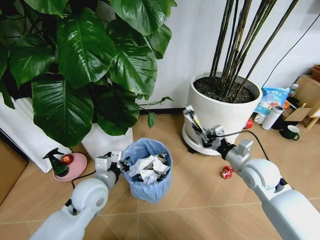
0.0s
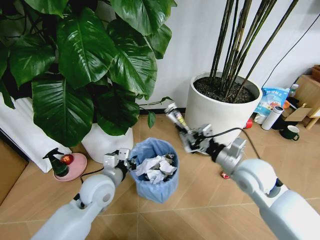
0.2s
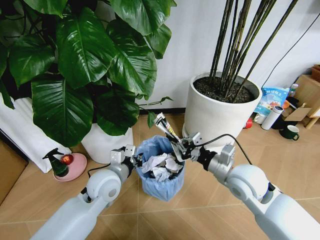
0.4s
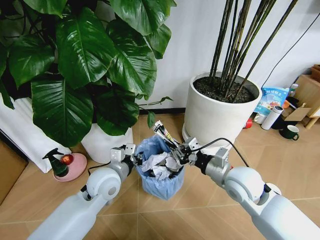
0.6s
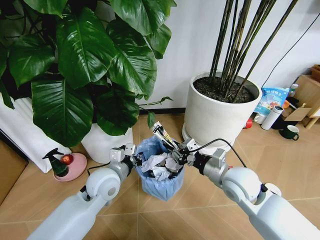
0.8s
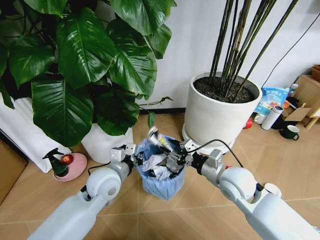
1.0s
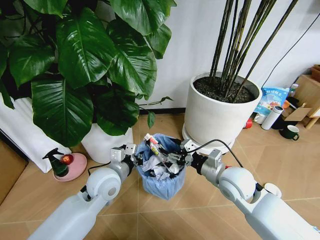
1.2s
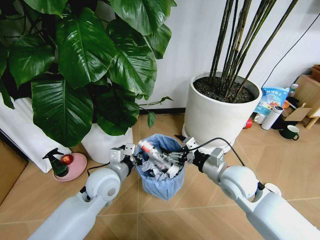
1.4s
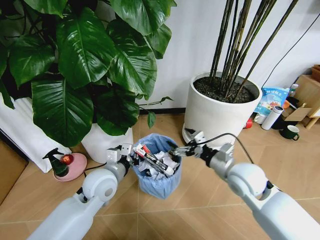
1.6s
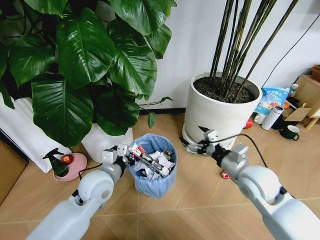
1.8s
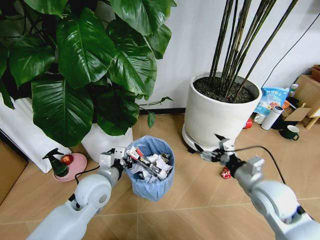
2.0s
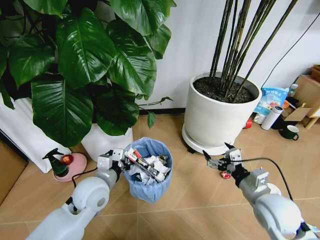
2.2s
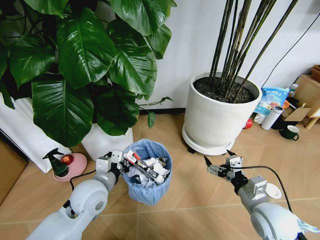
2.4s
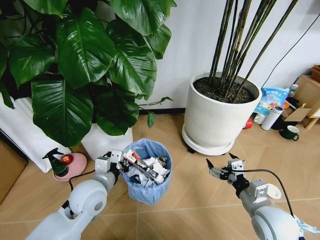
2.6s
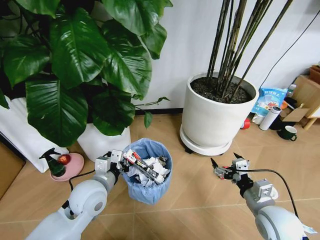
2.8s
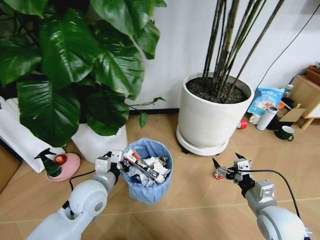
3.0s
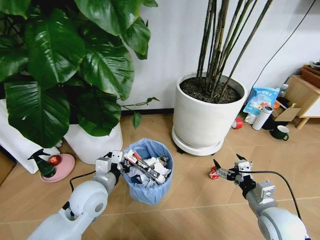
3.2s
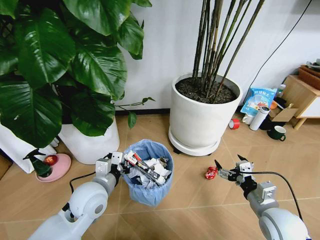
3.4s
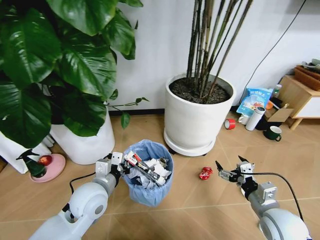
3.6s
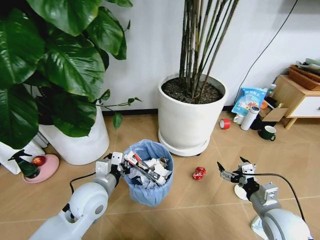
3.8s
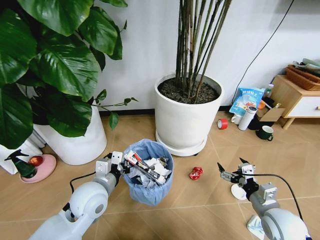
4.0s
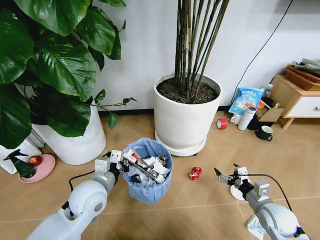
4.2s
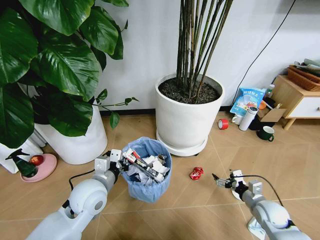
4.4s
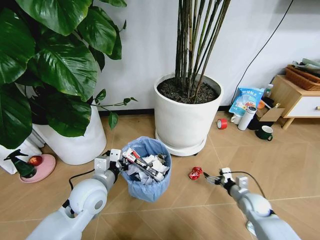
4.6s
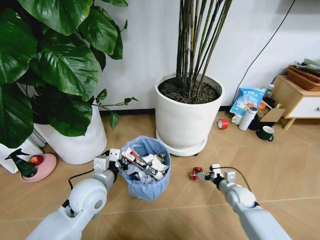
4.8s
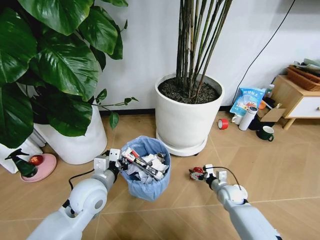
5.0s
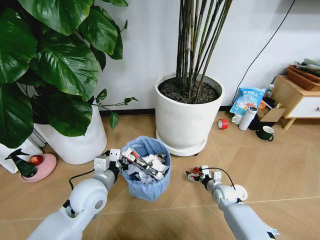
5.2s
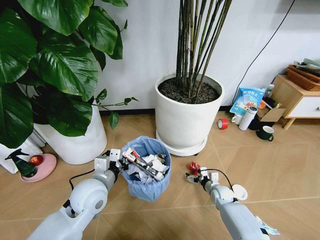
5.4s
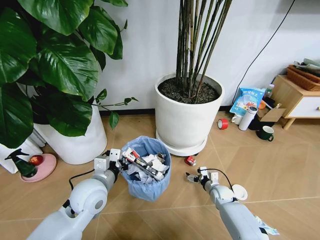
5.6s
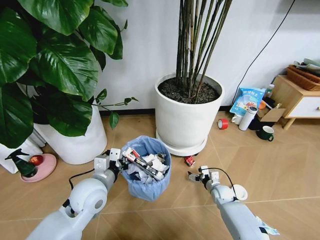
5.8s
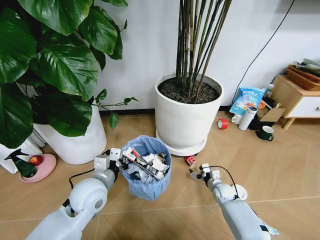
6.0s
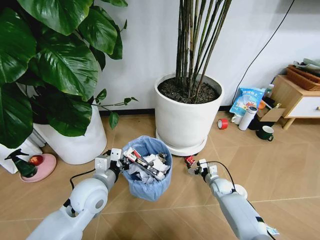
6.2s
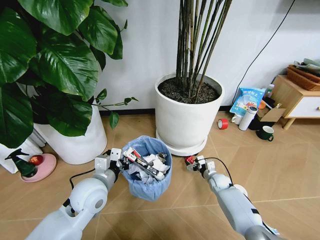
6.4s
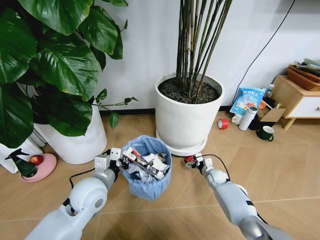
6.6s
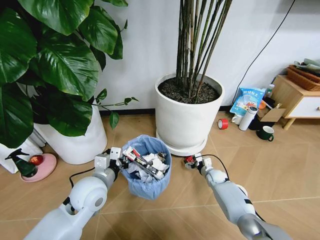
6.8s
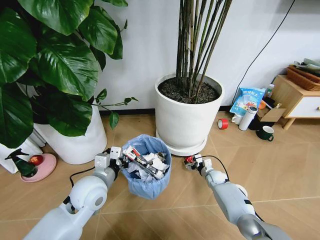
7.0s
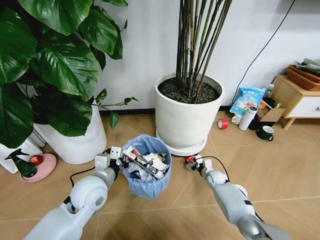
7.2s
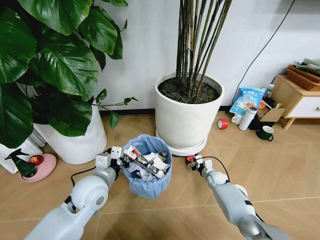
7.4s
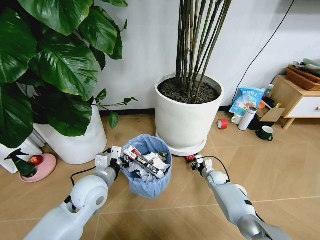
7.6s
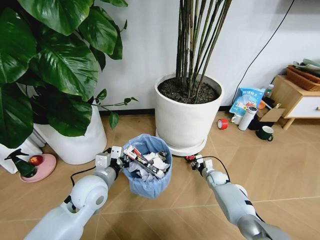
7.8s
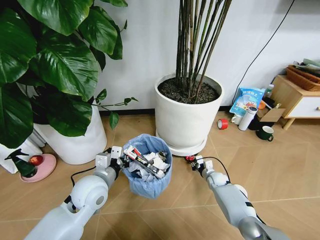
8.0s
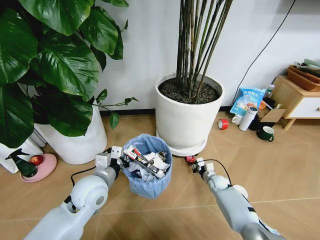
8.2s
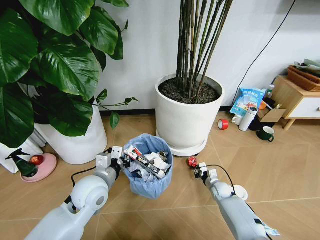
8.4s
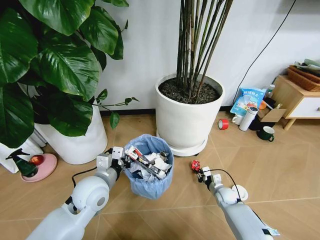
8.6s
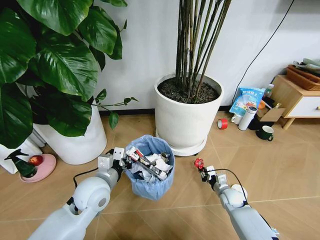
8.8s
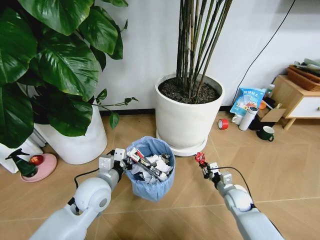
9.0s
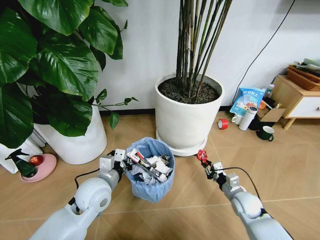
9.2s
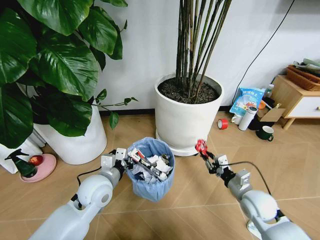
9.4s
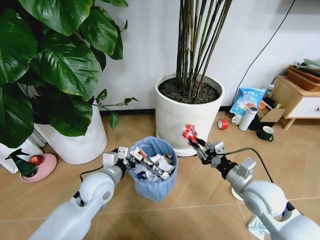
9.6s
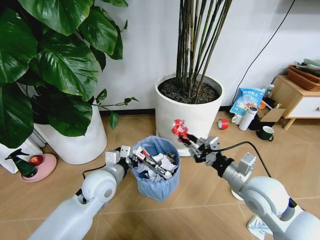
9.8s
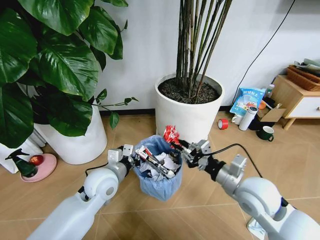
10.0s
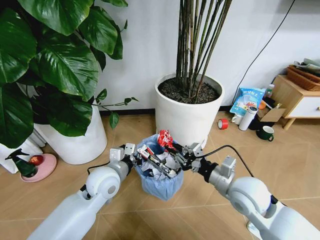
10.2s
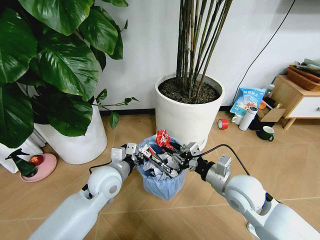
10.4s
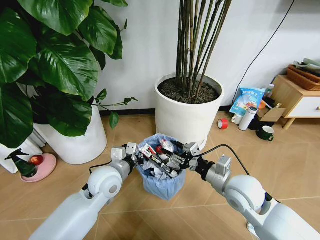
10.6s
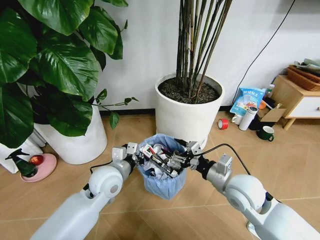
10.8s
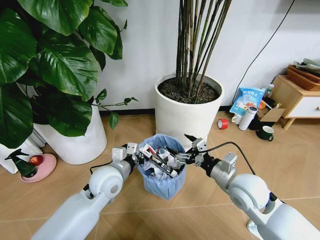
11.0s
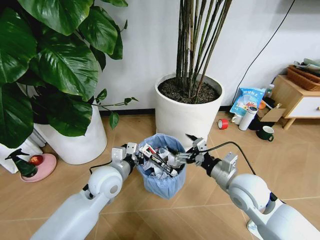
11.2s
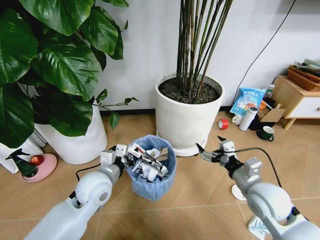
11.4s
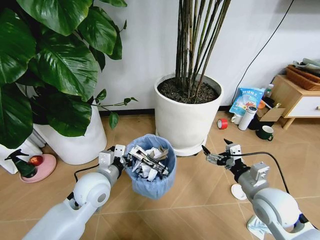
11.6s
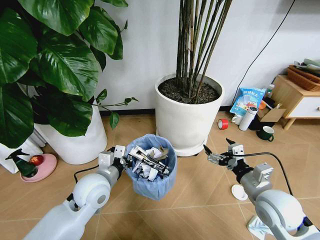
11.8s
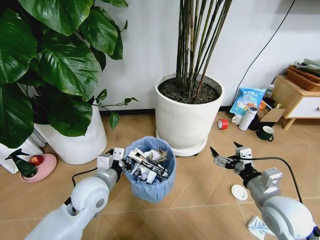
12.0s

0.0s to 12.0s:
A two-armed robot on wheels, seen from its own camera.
Task of the whole recording: Pick up the trash bin and place the garbage on the floor into it.
0.0s to 1.6s: The right gripper moves to the left, roughly 5 cm, and opens.
1.6s to 3.0s: The right gripper shifts approximately 15 cm backward, to the right and downward.
3.0s to 4.4s: The right gripper goes approximately 15 cm downward, to the right and forward.
4.4s to 6.0s: The right gripper travels forward, downward and to the left by about 20 cm.
6.0s to 7.6s: The right gripper heads forward, covering approximately 5 cm, and closes up.
7.6s to 9.0s: The right gripper shifts approximately 15 cm backward and upward.
9.0s to 10.4s: The right gripper heads upward and to the left, covering some 25 cm.
10.4s to 12.0s: The right gripper goes approximately 10 cm to the right and backward, and opens.

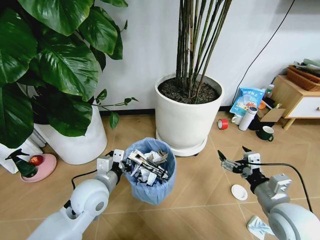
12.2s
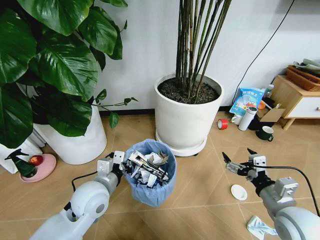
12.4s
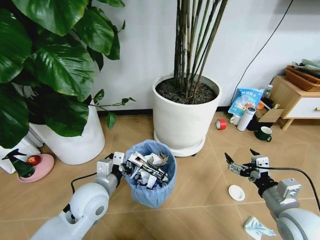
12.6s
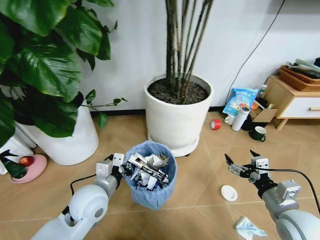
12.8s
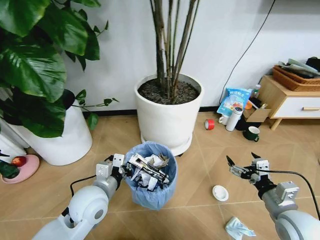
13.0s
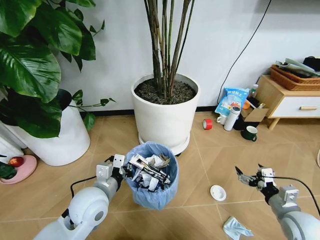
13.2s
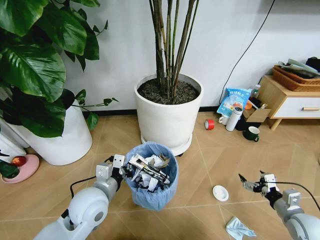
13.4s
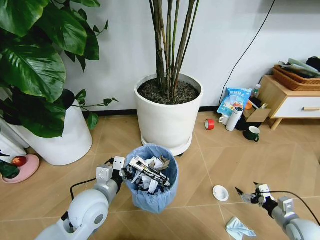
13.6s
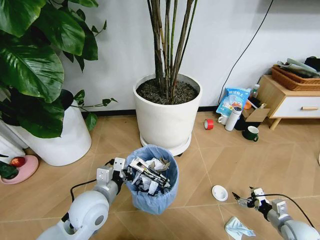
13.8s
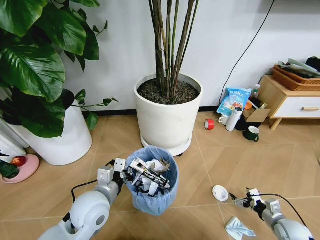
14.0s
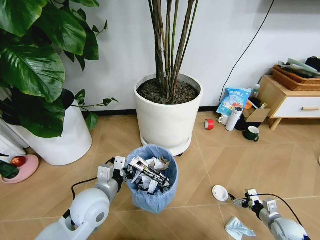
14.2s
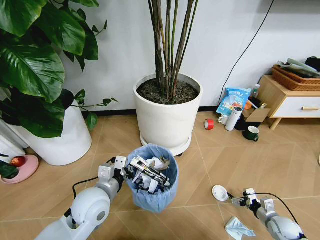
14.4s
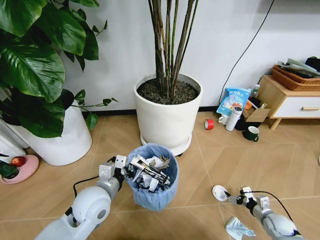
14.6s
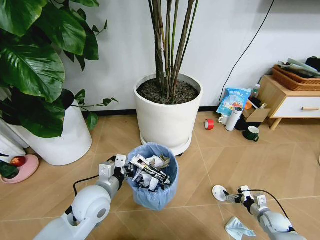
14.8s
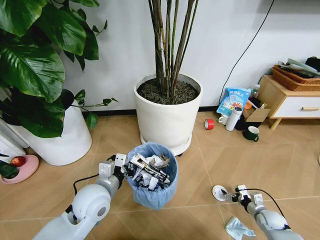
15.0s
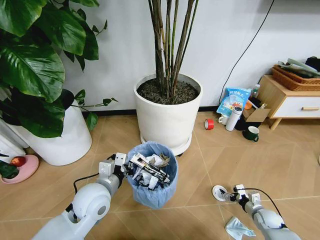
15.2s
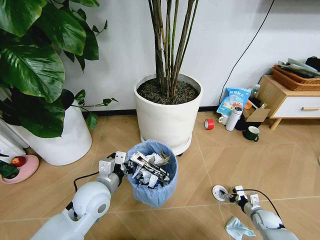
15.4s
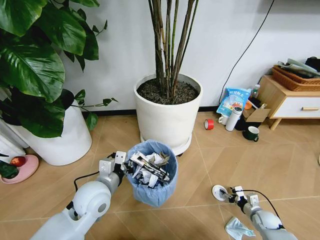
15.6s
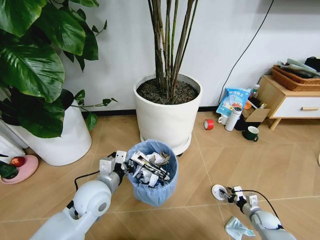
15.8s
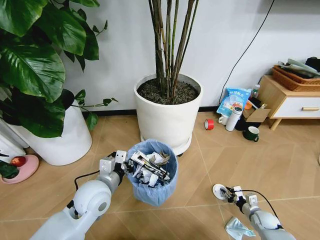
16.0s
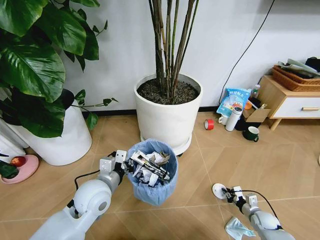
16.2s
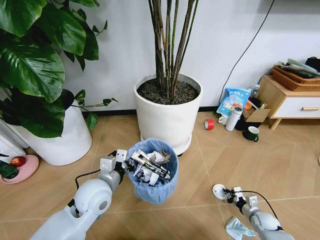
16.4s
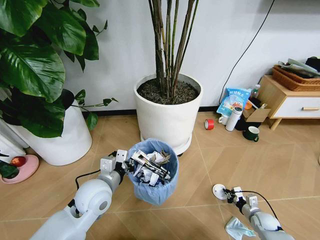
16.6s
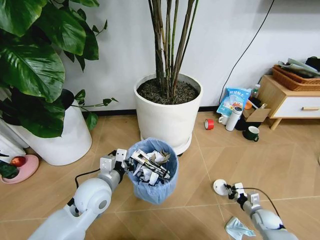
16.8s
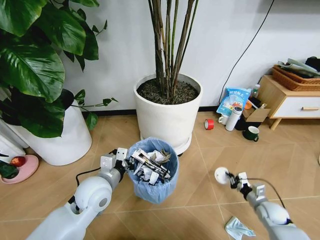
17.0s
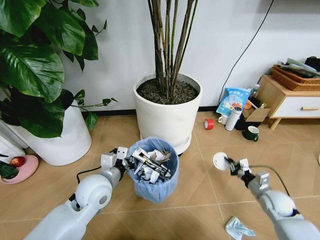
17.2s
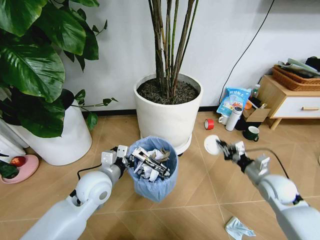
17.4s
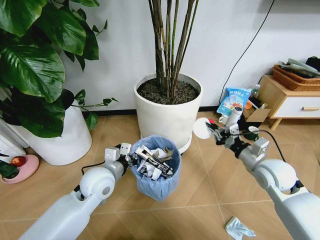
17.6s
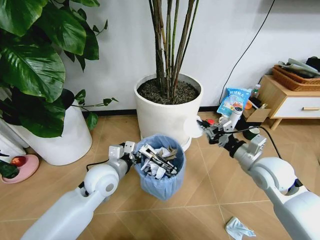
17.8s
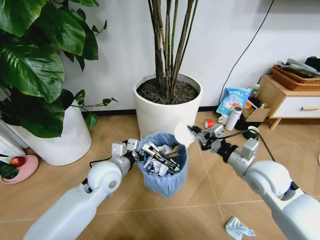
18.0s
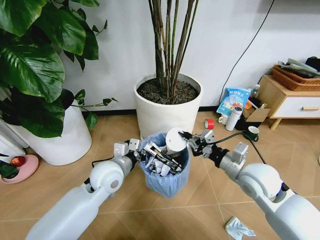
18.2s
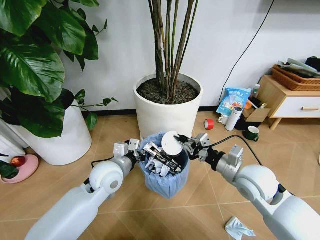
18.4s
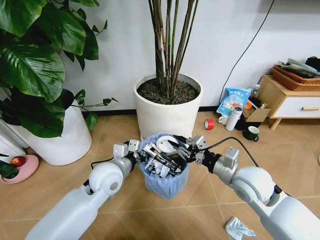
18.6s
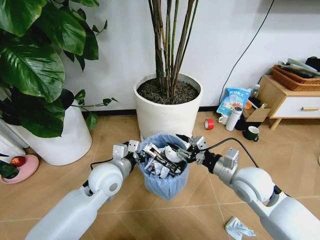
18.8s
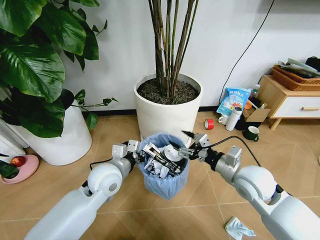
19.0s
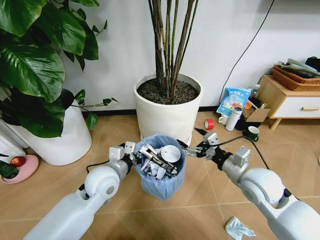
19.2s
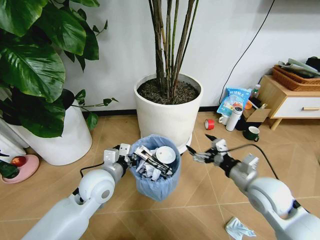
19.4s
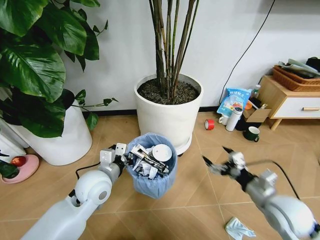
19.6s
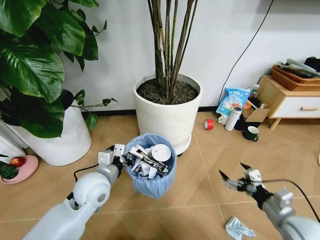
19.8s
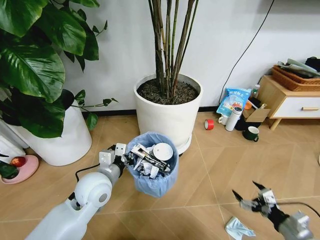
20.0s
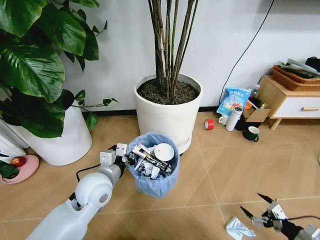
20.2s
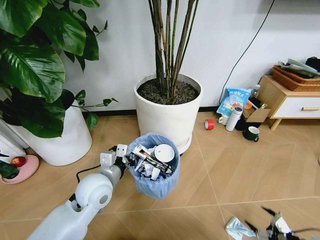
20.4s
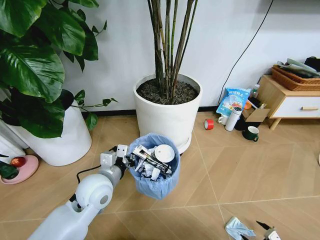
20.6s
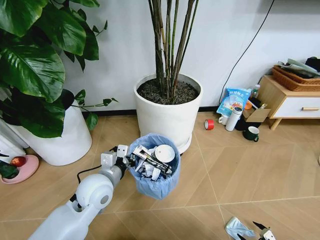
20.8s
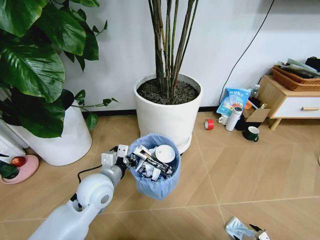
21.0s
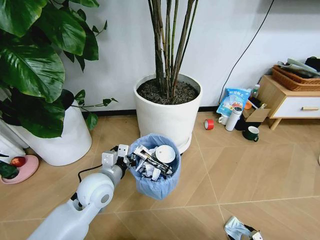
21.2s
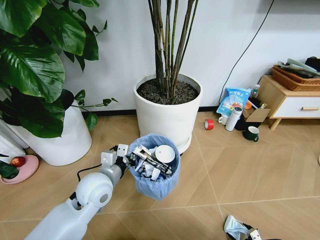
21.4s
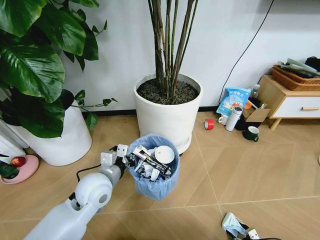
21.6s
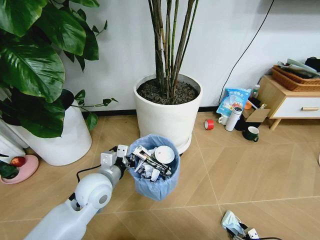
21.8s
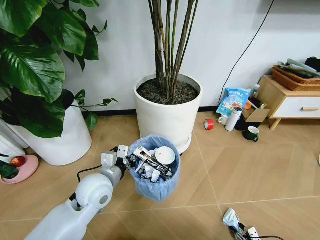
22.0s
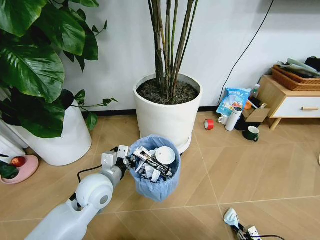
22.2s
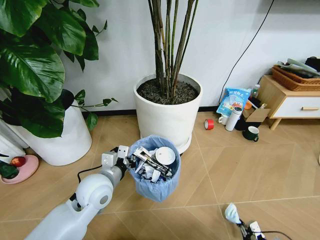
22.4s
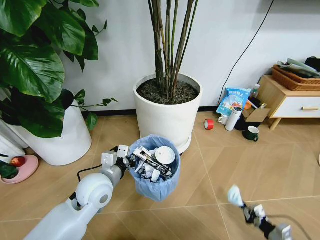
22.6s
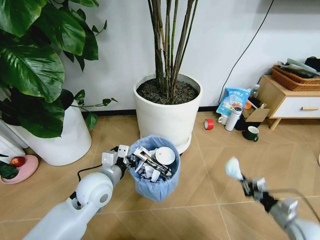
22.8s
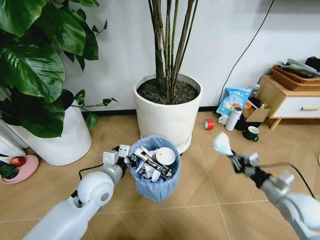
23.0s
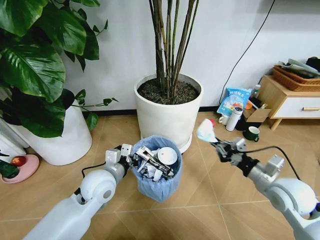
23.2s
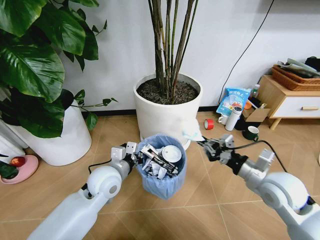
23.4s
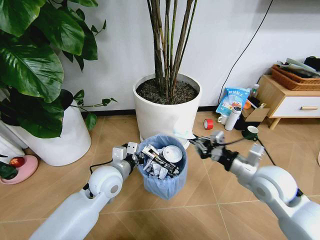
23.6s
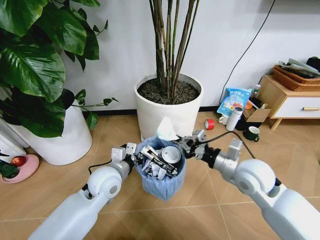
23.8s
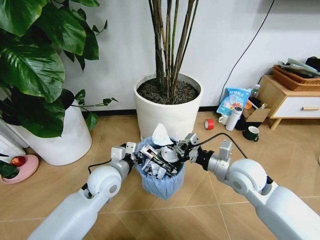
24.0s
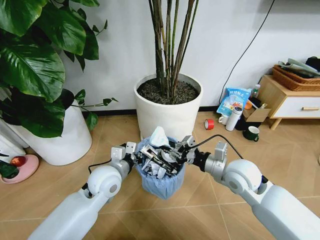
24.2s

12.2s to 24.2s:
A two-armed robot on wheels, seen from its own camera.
Task of the whole recording: Pick up the trash bin and place the garbage on the floor into it.
12.2s to 13.8s: The right gripper moves downward and to the right, about 25 cm.
13.8s to 15.2s: The right gripper shifts roughly 10 cm downward and forward.
15.2s to 16.6s: The right gripper closes.
16.6s to 18.2s: The left gripper goes roughly 5 cm forward; the right gripper heads upward and to the left, covering about 40 cm.
18.2s to 19.8s: The right gripper goes about 20 cm backward, to the right and downward, and opens.
19.8s to 21.2s: The right gripper goes about 25 cm downward and backward.
21.2s to 22.6s: The right gripper heads forward, covering approximately 5 cm, and closes.
22.6s to 24.2s: The right gripper heads upward, to the left and forward, covering roughly 40 cm.
